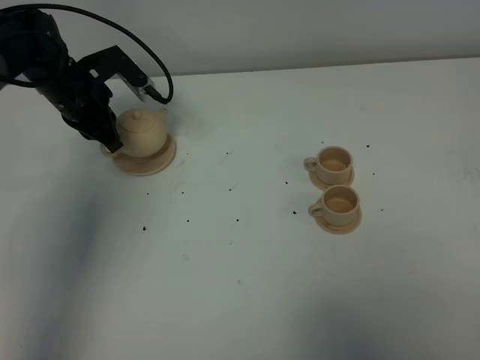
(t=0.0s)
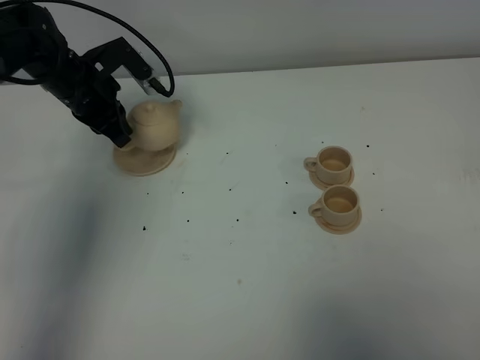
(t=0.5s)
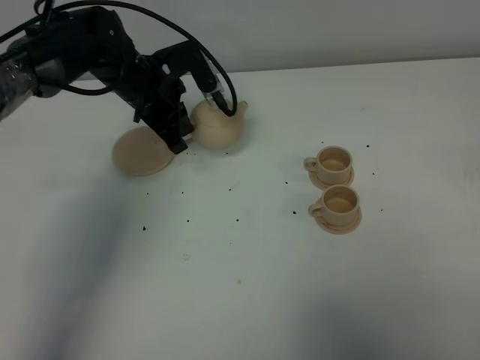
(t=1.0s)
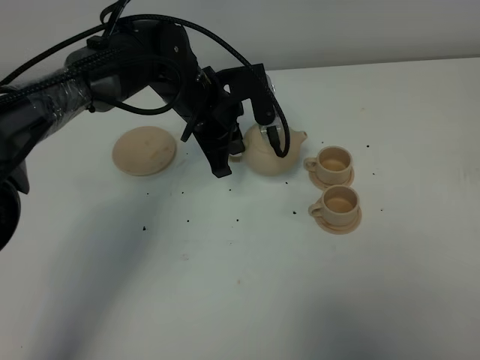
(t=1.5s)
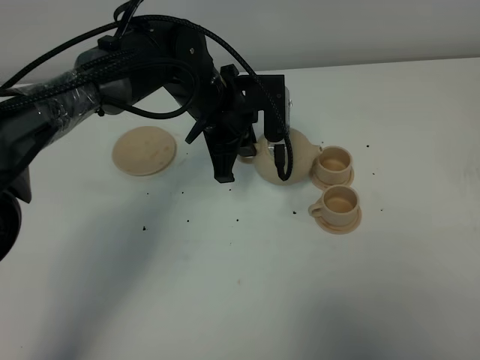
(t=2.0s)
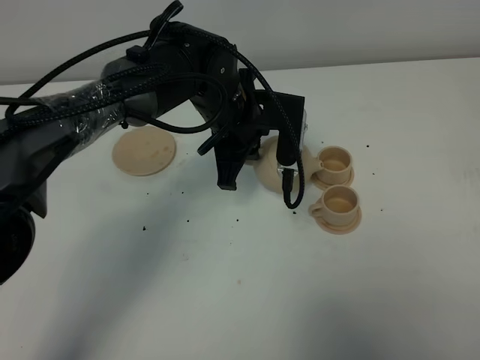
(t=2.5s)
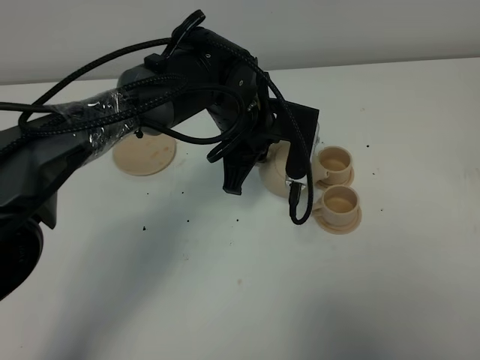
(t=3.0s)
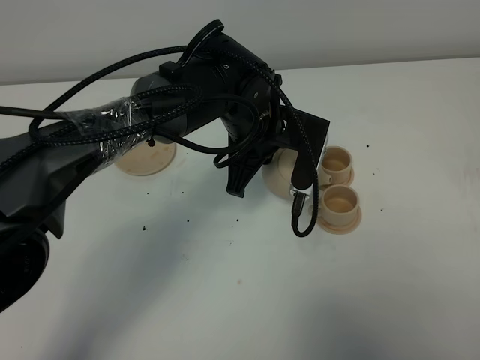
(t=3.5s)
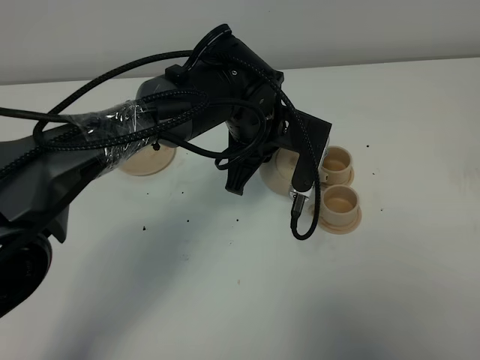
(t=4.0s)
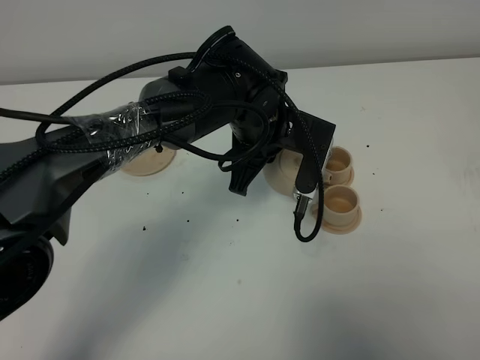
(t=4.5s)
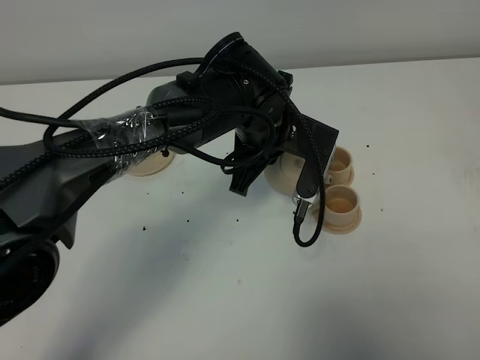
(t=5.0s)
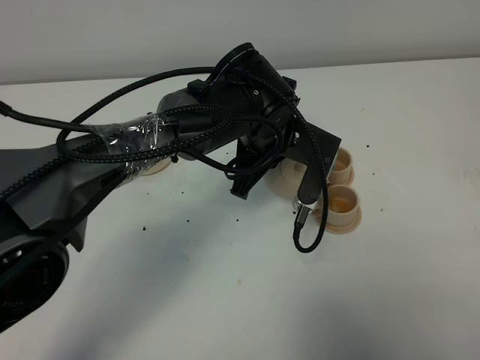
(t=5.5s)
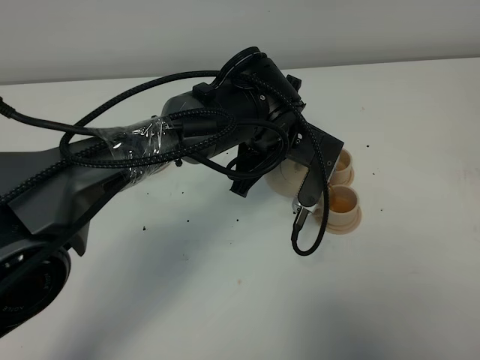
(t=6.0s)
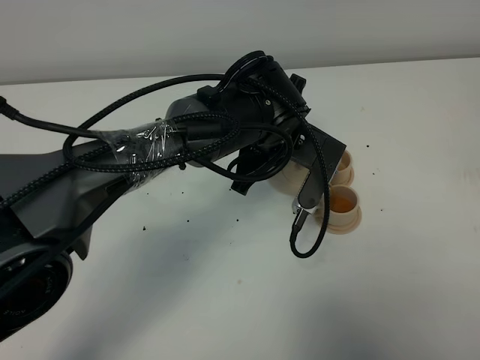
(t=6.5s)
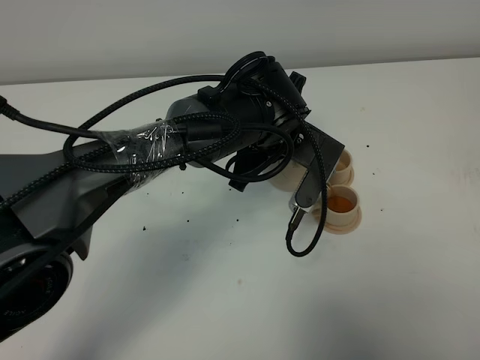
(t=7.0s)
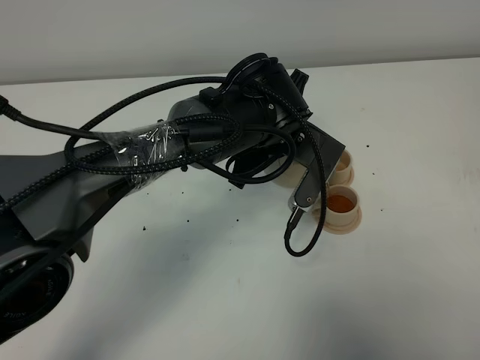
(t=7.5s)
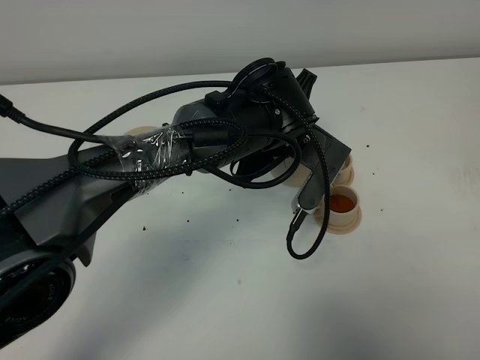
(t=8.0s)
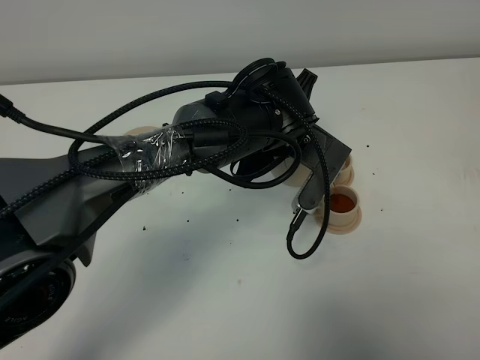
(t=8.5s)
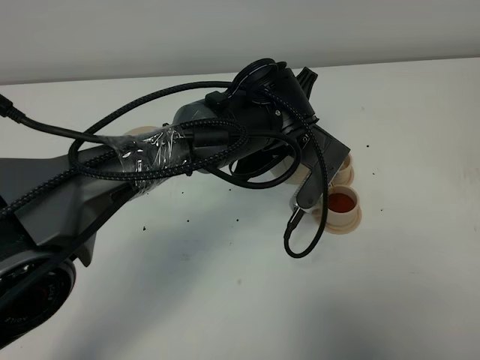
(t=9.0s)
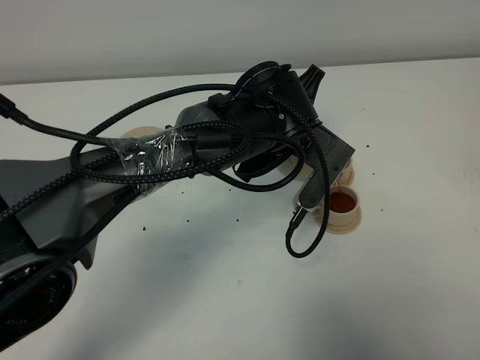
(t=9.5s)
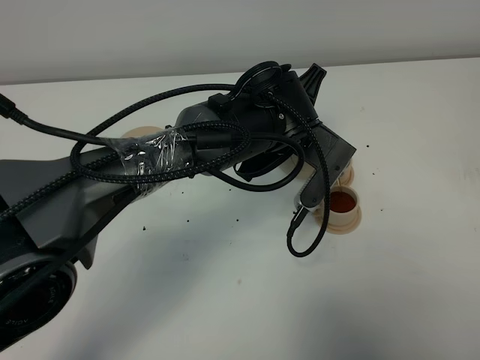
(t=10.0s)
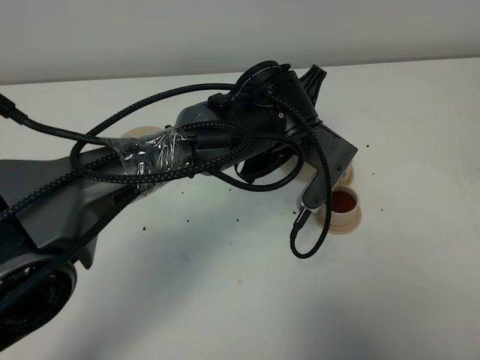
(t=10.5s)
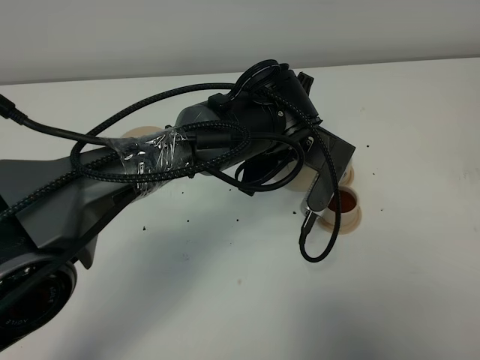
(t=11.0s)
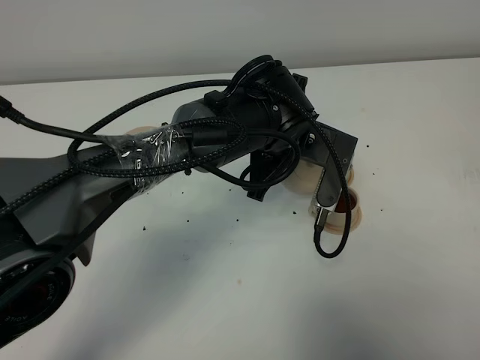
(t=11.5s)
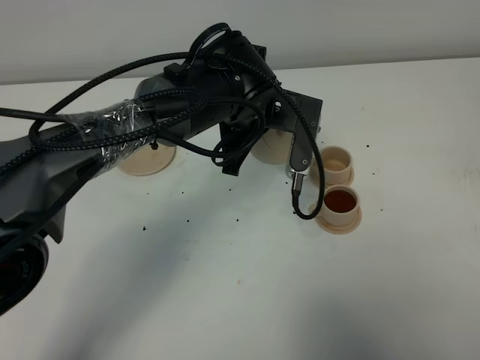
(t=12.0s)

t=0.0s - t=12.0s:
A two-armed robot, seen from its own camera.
Task of the whole recording: grasp the brown teapot and pour the tea into the two brown teacups one by one, put the brown teapot back in its original place.
Step, t=0.0s - t=11.5s: Pour tea into the teacup with the left gripper.
t=0.0s - t=2.0s: The left gripper shifts roughly 20 cm to the right.
t=2.0s - t=4.0s: The left gripper is displaced to the right by roughly 5 cm.
t=4.0s - t=8.0s: The grippers stay close to where they were, moving slightly.
t=8.0s - t=10.0s: Both grippers stay put.
t=10.0s - t=12.0s: The left gripper changes place by roughly 5 cm.

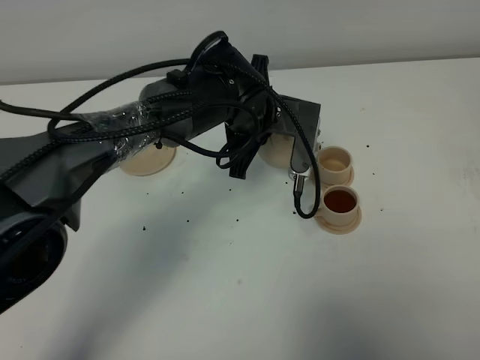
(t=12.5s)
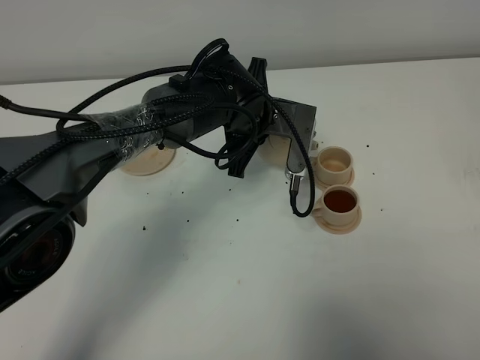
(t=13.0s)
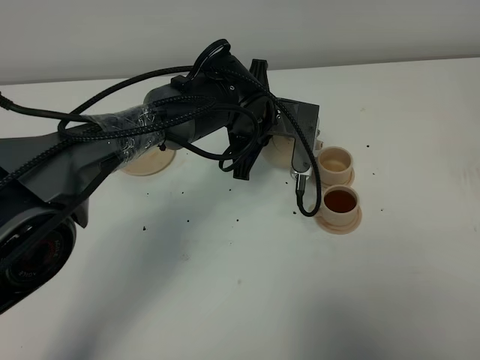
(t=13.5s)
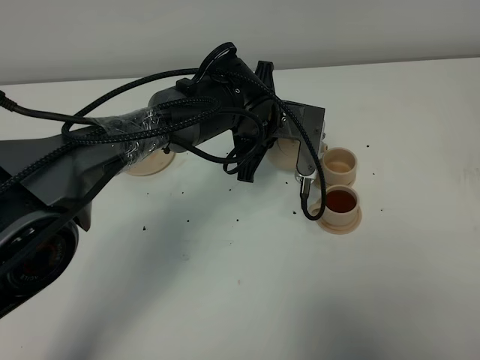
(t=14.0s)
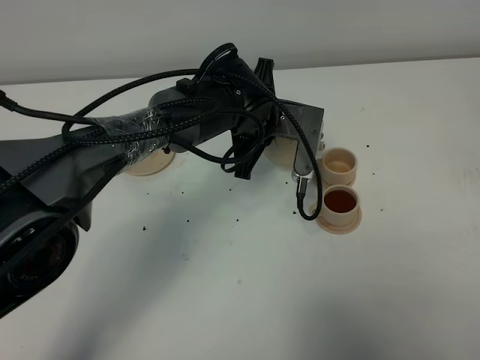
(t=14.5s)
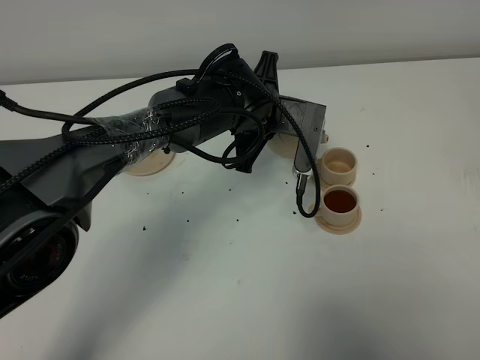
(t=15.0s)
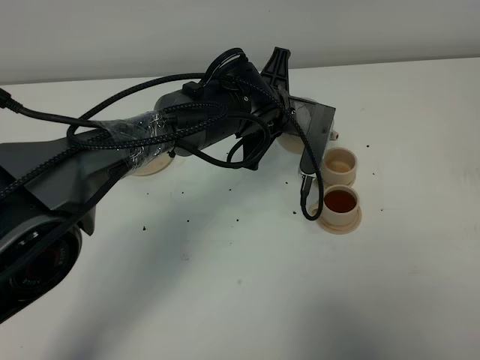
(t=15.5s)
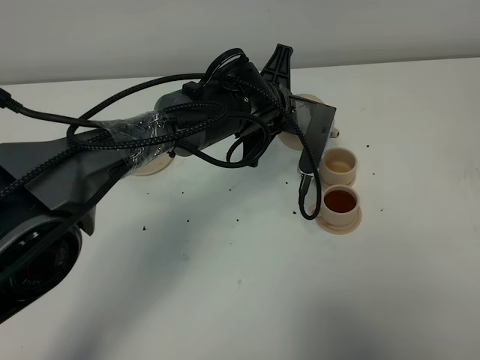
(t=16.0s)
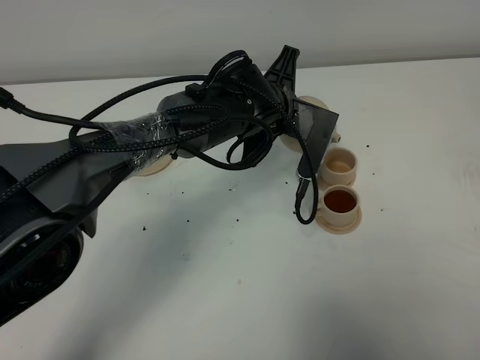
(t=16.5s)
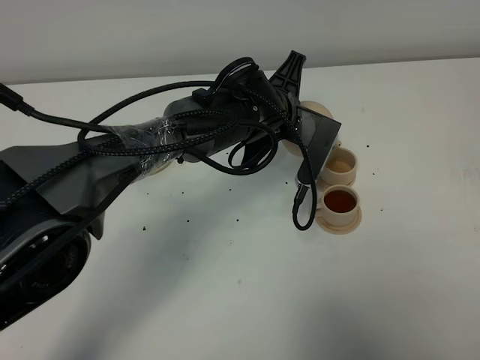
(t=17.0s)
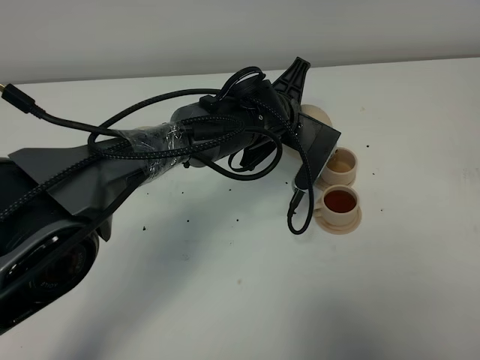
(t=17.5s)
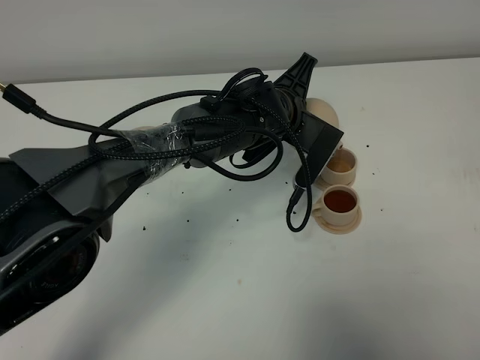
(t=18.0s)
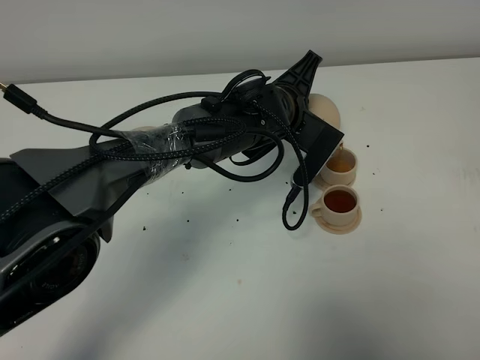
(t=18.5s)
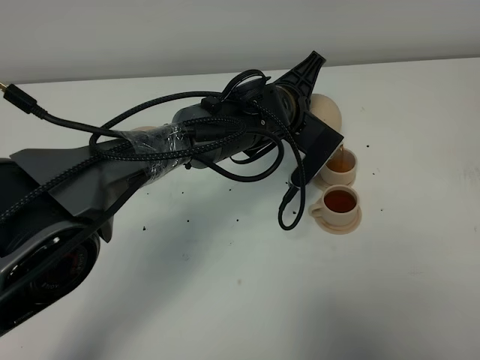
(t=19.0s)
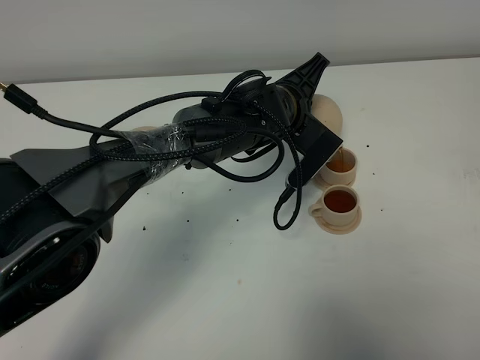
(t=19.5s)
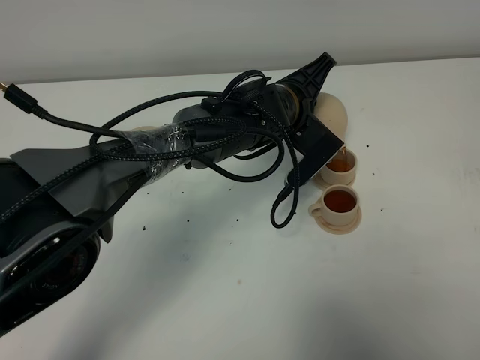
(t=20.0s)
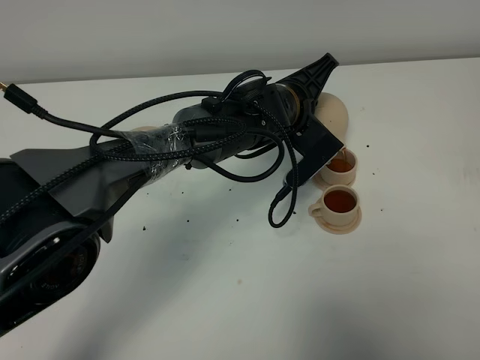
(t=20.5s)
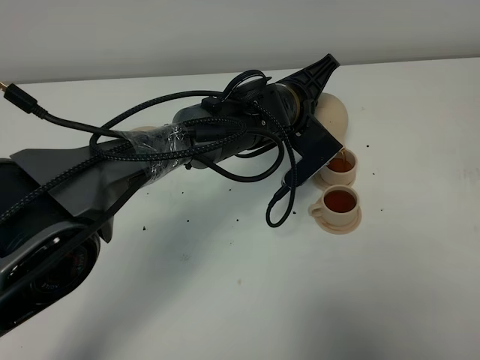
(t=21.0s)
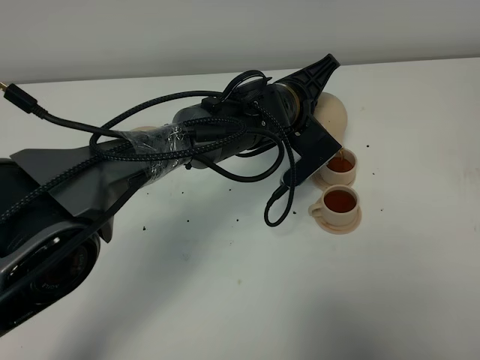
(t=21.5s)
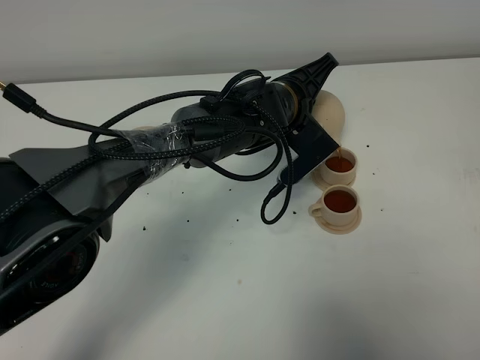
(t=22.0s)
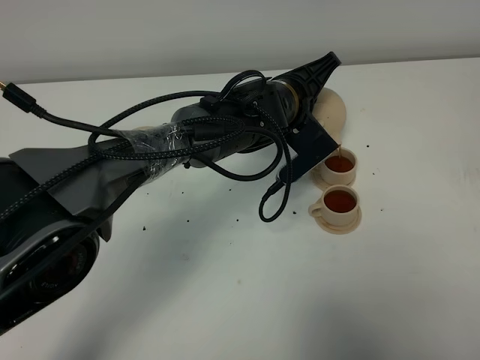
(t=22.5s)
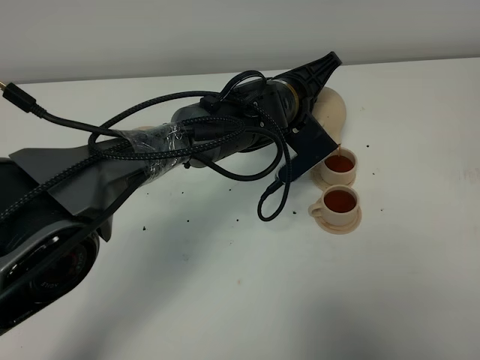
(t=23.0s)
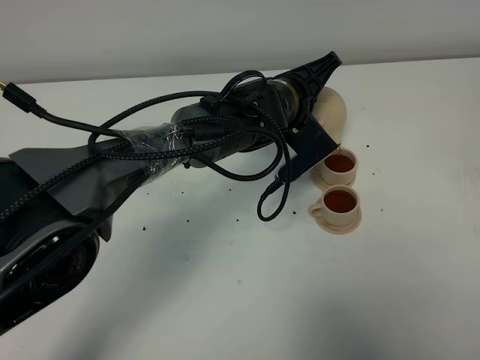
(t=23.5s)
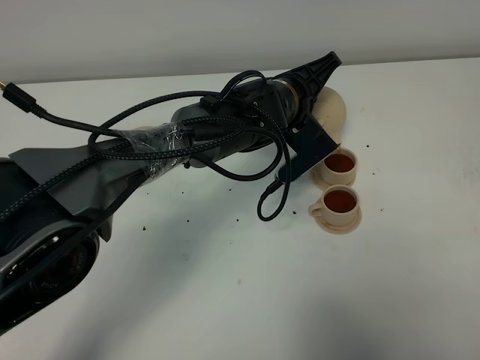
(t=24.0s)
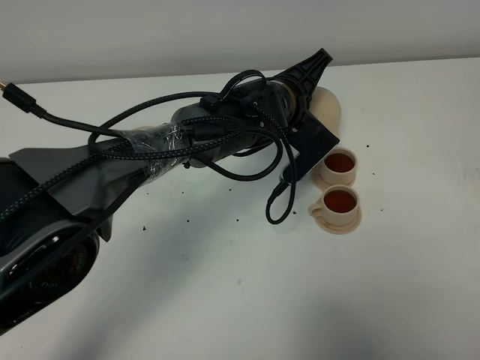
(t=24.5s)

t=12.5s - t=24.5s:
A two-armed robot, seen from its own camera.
Task of the whole recording: grasp the brown teapot and pour the tea into the two brown teacups one by one, put the brown teapot back in its original place.
t=12.5s - t=16.5s: There are only small adjustments of the grippers.
t=16.5s - t=18.5s: The grippers make only small movements.
t=18.5s - t=24.5s: The grippers stay close to where they were, moving slightly.

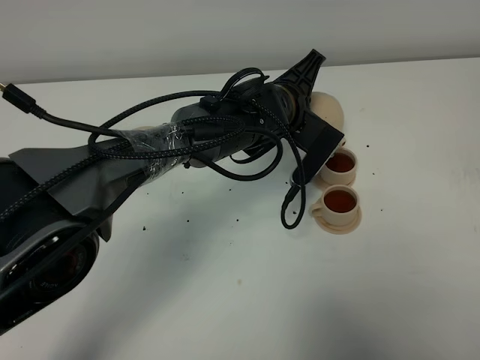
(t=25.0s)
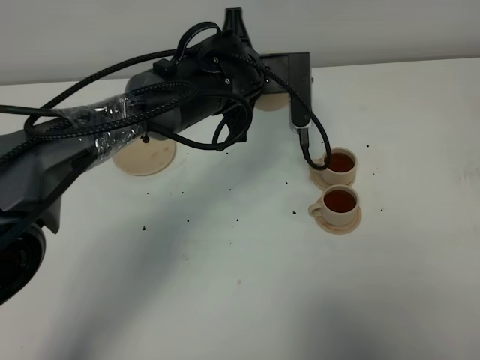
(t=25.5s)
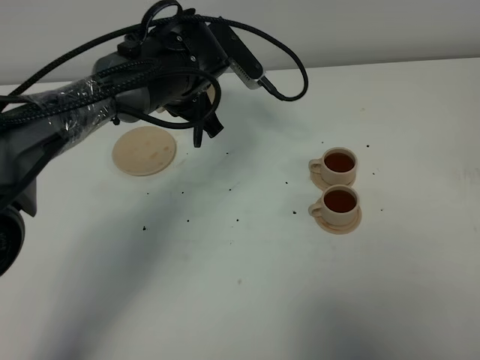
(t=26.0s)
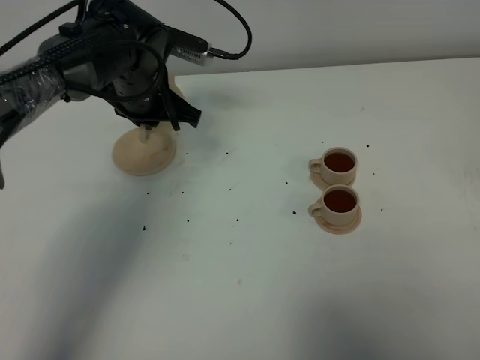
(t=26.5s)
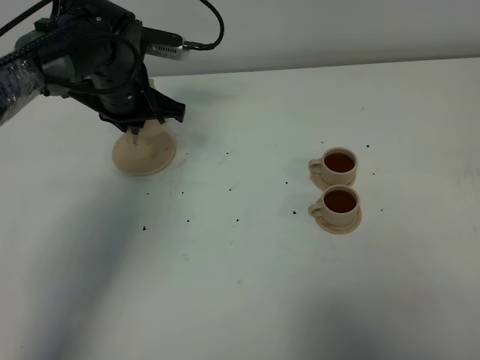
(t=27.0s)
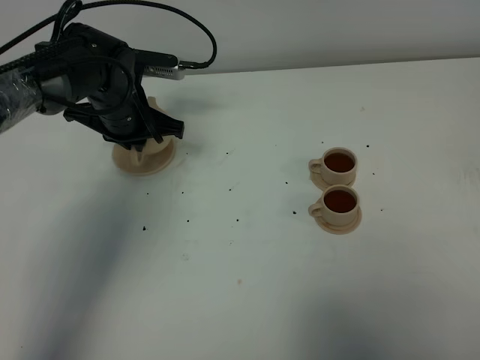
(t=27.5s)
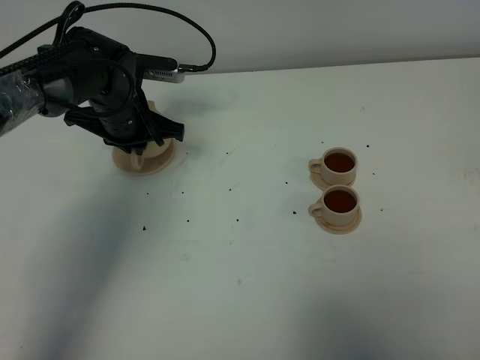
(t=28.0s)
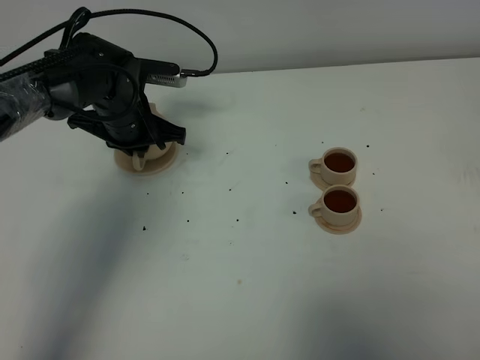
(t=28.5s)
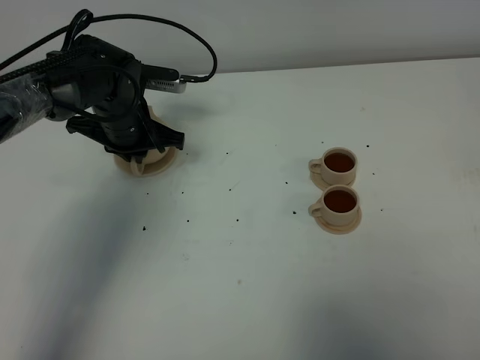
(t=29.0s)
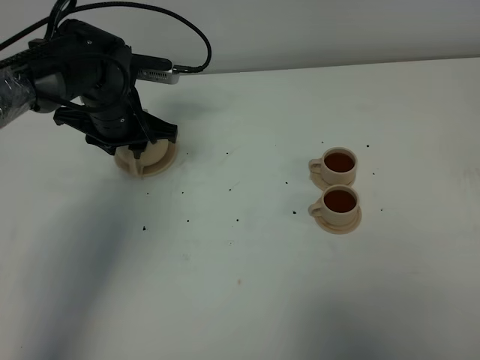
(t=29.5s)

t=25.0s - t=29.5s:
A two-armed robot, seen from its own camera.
Task of the whole recording: grasp the brown teapot and pour the tea into the two brown teacups one by one, put the brown teapot back in its original place.
t=25.0s - t=27.0s: The left gripper shifts some 20 cm to the left.
t=27.0s - t=29.5s: The left gripper opens its fingers.
